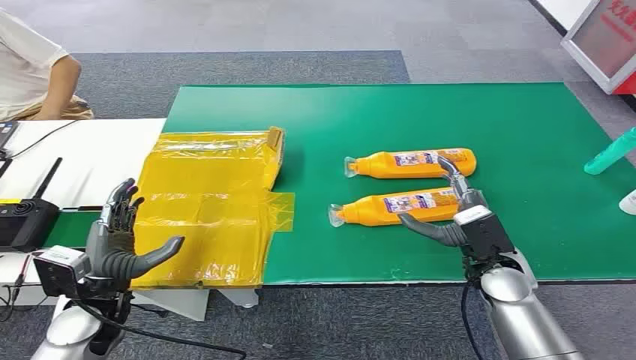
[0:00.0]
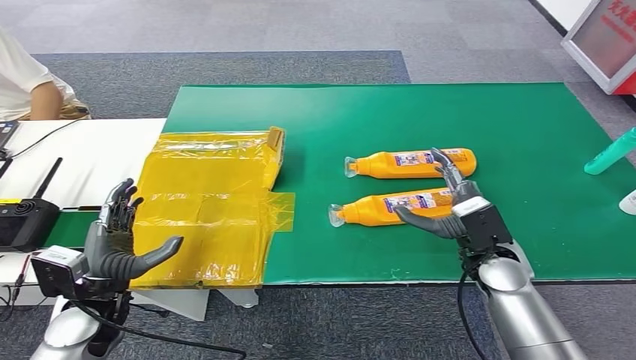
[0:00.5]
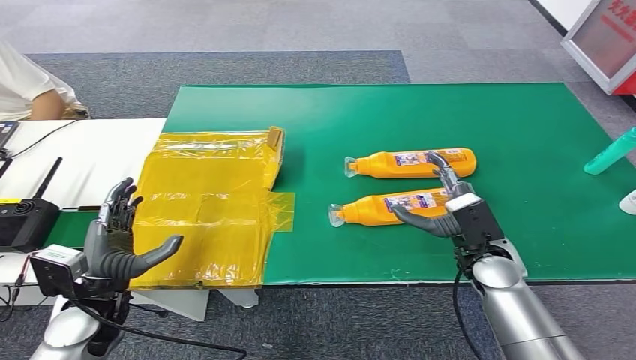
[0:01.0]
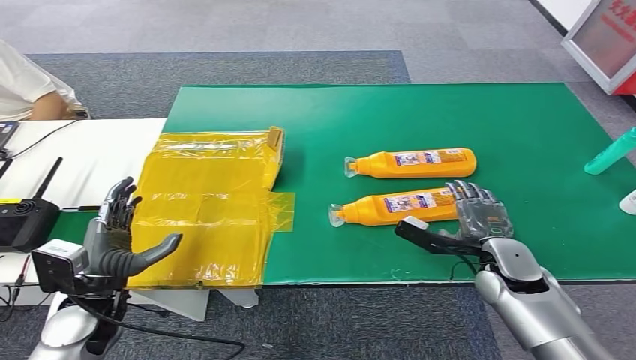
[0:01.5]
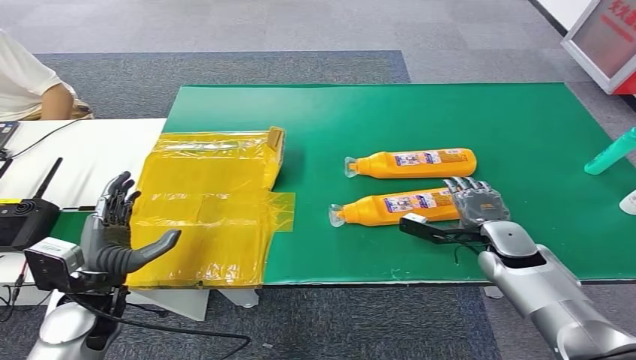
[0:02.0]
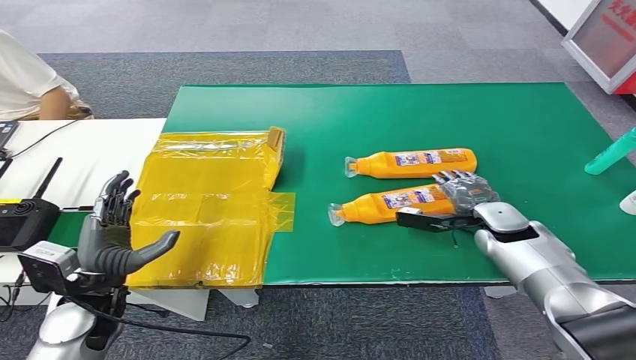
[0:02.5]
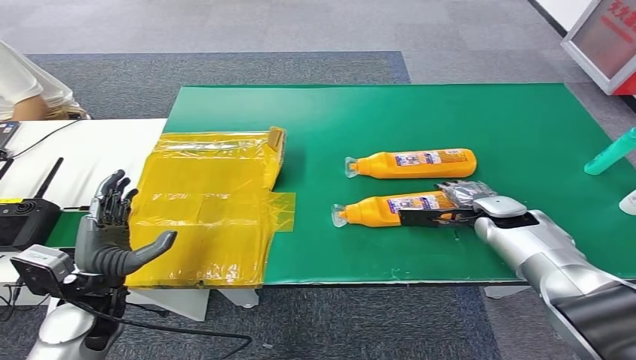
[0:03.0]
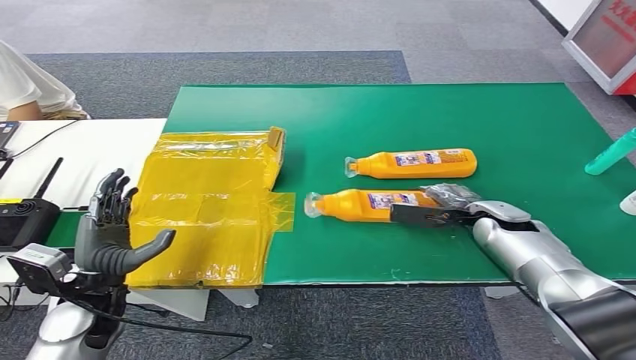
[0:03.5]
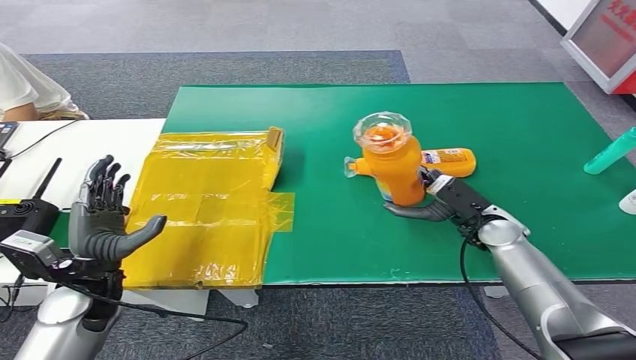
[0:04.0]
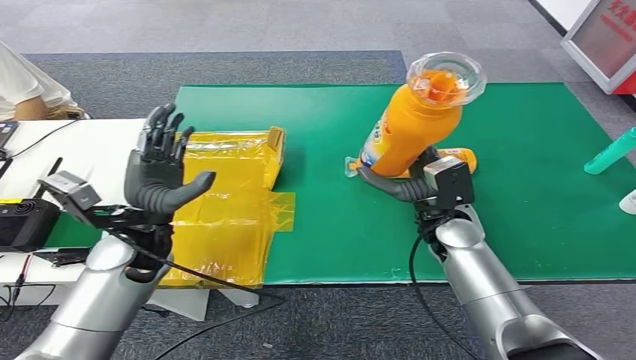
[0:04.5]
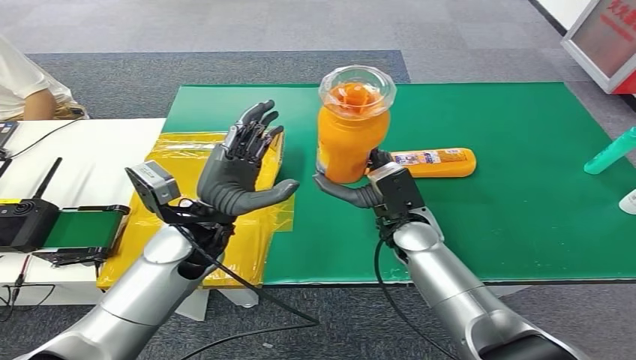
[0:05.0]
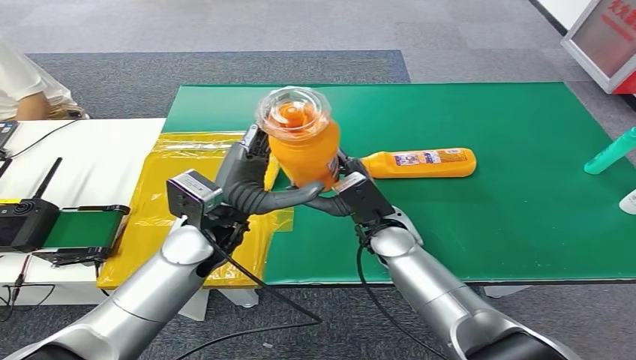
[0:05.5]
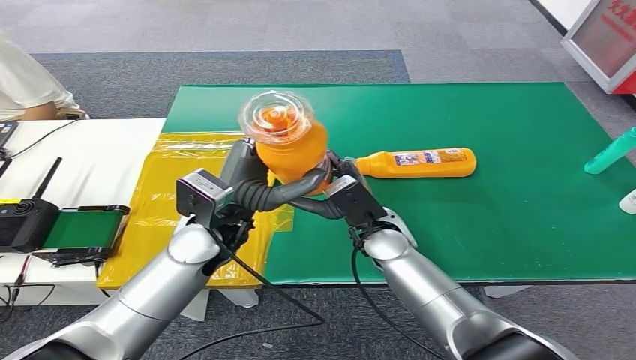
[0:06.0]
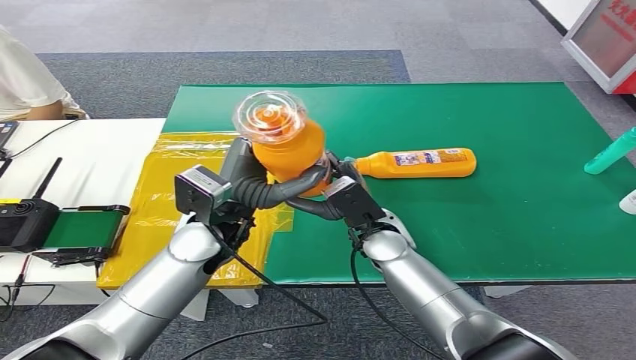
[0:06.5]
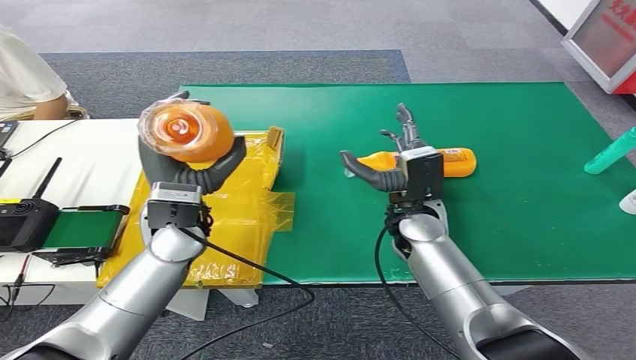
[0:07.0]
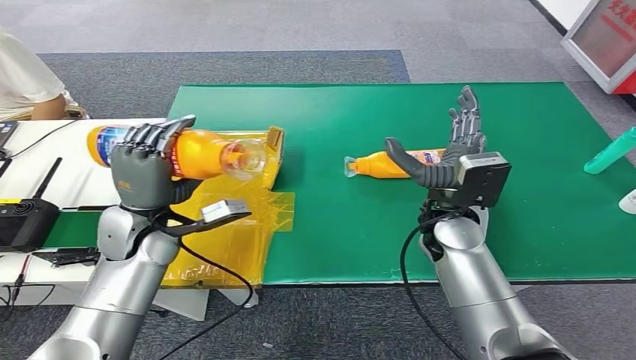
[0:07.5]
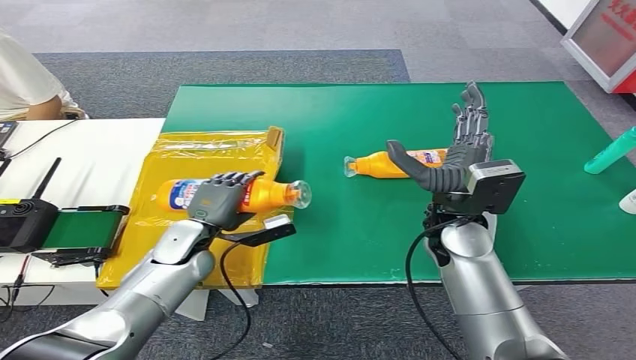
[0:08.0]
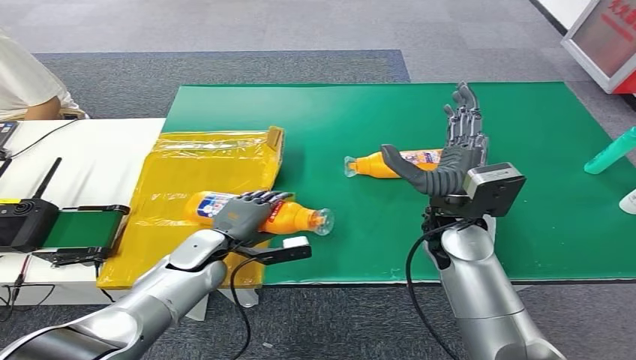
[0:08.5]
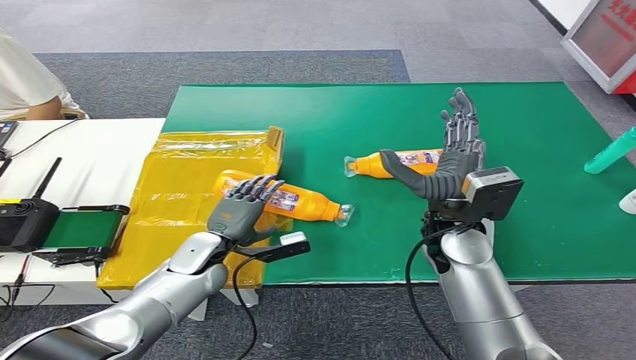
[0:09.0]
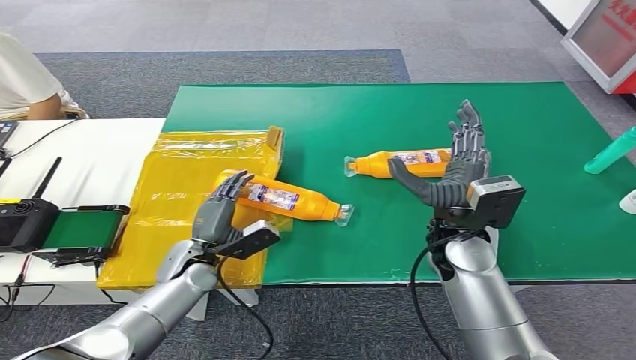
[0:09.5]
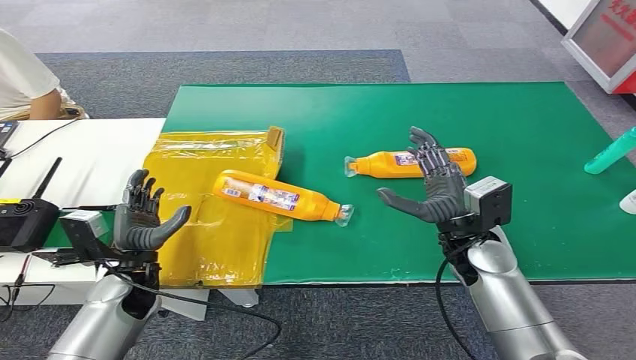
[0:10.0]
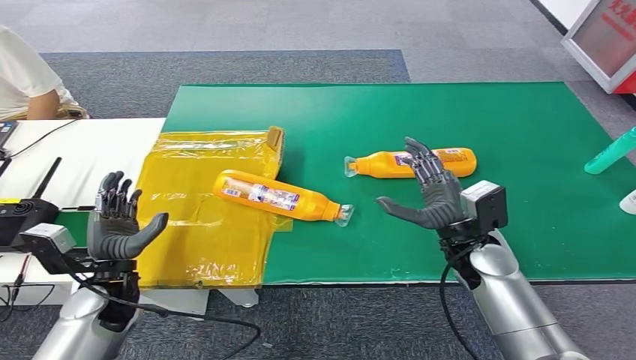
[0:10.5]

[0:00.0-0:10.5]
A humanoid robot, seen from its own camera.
Step, 0:00.0 to 0:04.0: Pick up the bottle from the table.
Step, 0:04.5 to 0:10.5: Turn the bottle to the front side.
